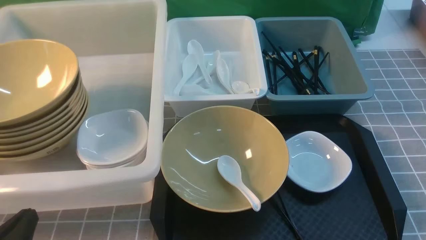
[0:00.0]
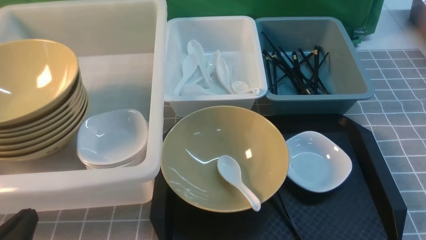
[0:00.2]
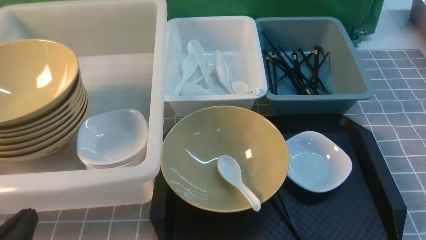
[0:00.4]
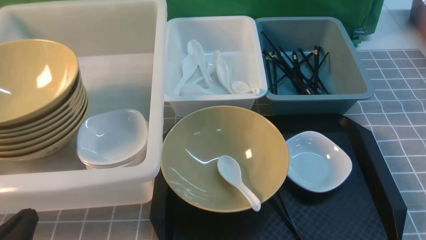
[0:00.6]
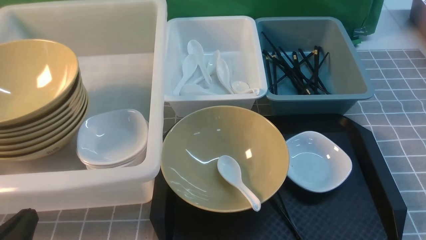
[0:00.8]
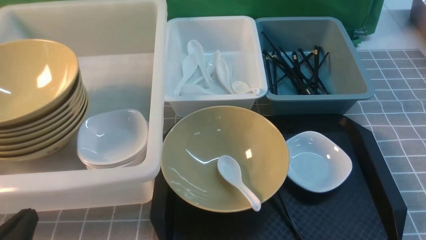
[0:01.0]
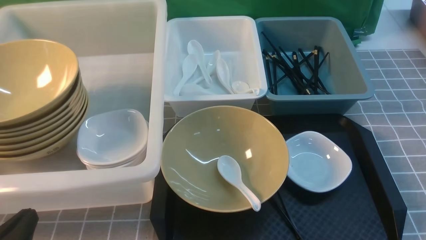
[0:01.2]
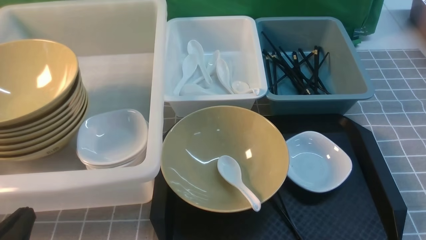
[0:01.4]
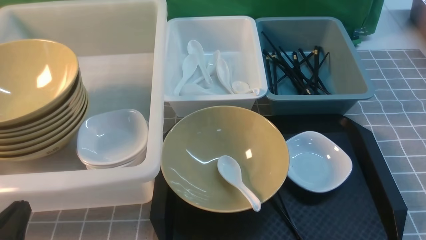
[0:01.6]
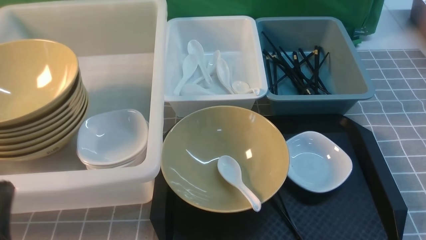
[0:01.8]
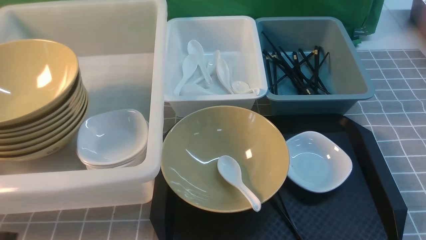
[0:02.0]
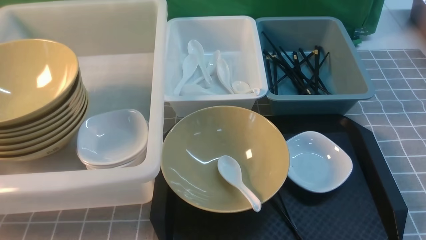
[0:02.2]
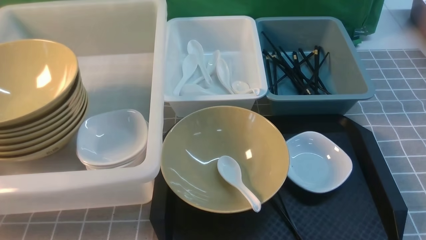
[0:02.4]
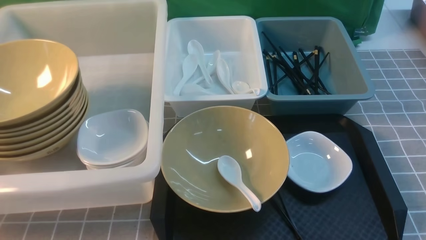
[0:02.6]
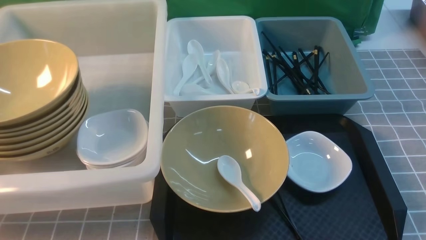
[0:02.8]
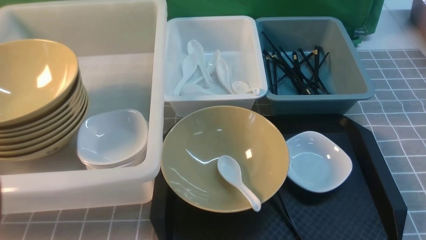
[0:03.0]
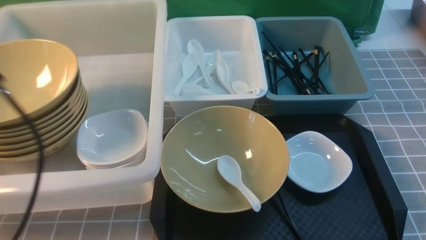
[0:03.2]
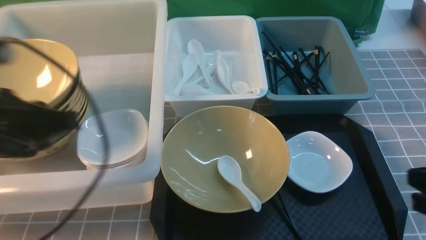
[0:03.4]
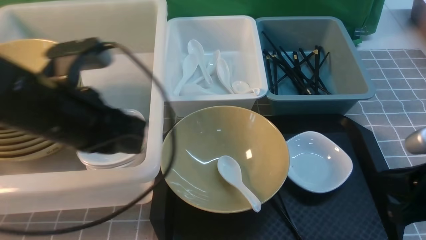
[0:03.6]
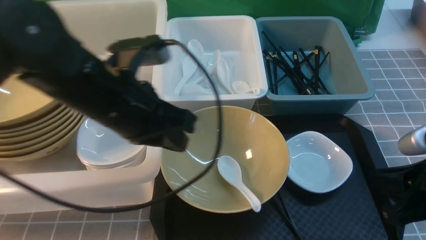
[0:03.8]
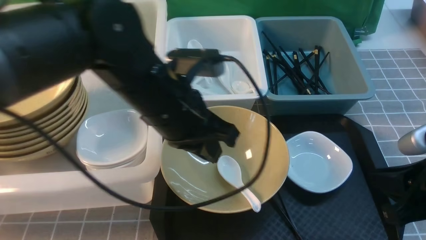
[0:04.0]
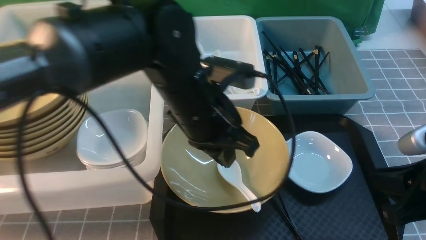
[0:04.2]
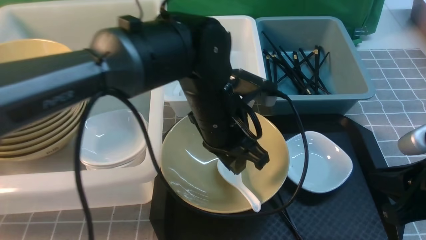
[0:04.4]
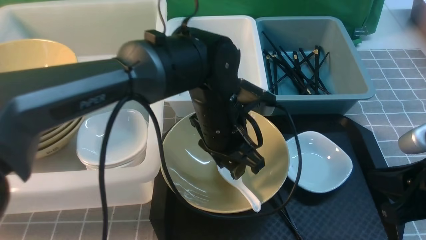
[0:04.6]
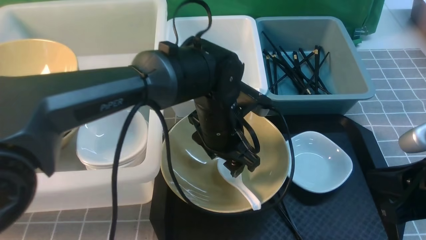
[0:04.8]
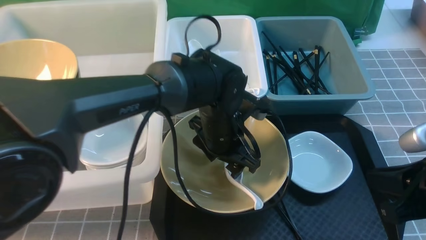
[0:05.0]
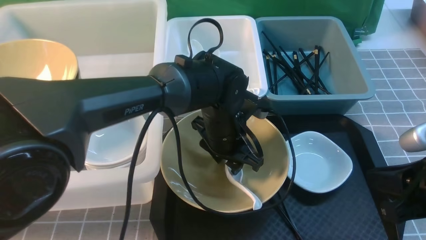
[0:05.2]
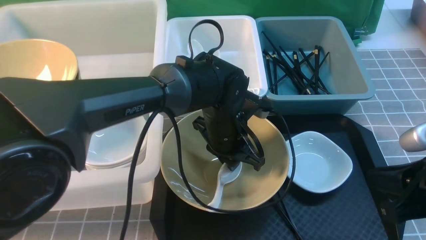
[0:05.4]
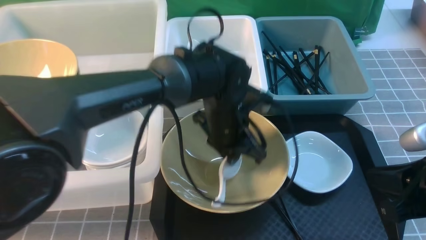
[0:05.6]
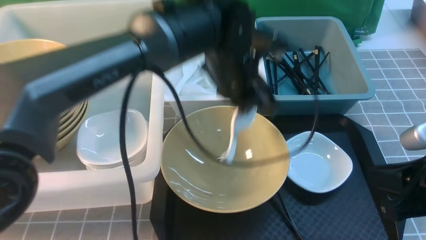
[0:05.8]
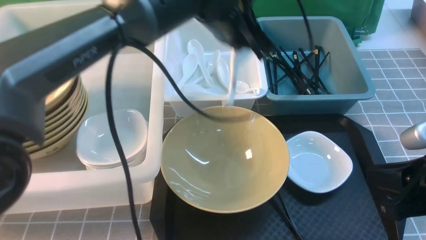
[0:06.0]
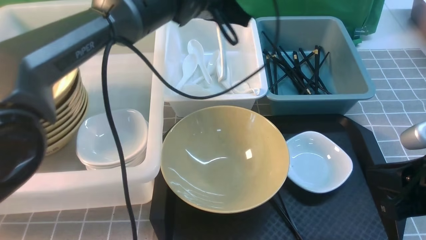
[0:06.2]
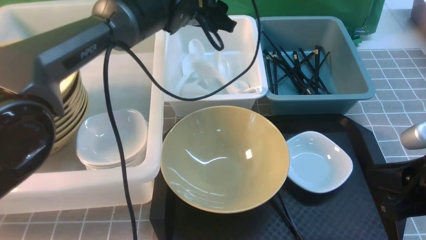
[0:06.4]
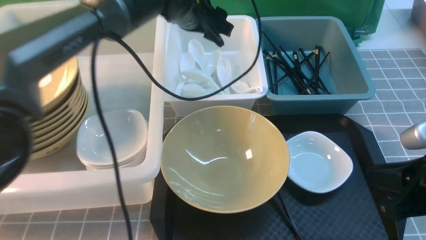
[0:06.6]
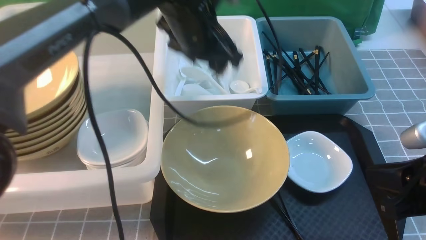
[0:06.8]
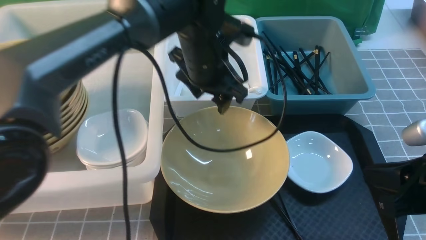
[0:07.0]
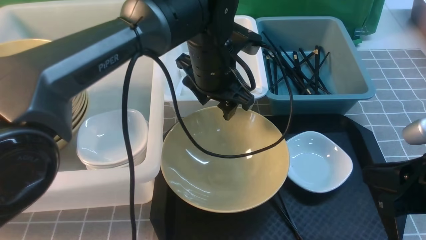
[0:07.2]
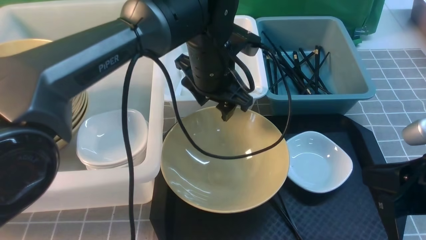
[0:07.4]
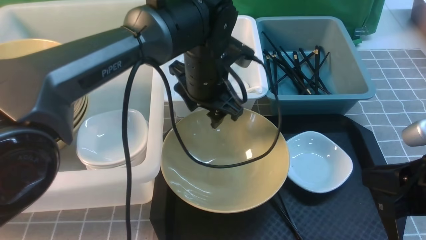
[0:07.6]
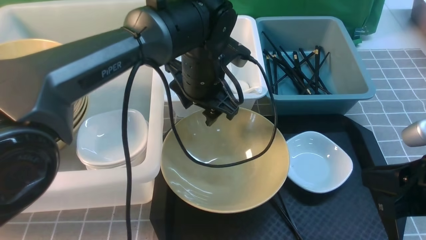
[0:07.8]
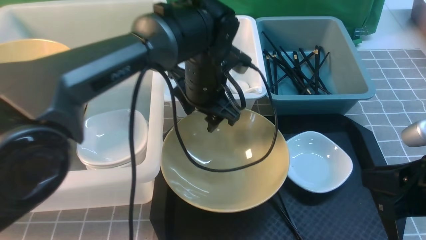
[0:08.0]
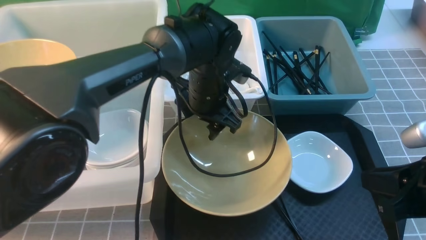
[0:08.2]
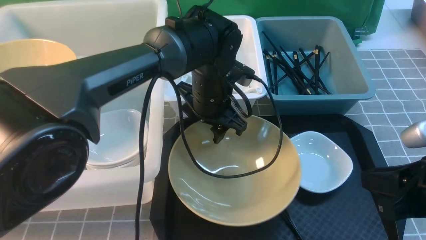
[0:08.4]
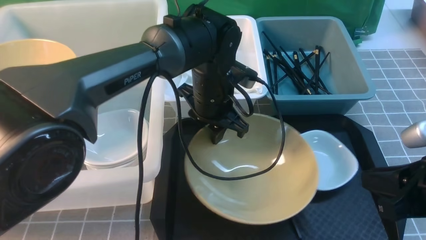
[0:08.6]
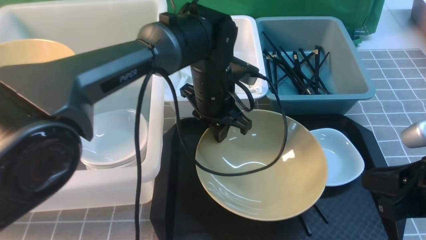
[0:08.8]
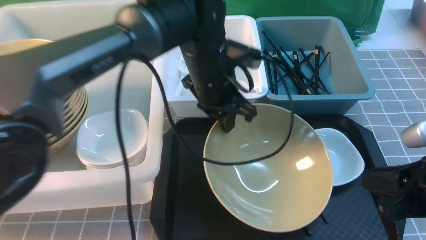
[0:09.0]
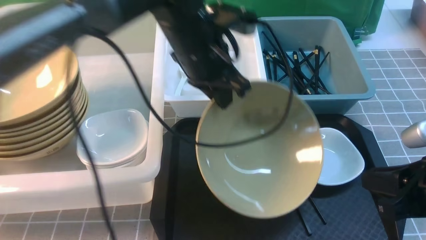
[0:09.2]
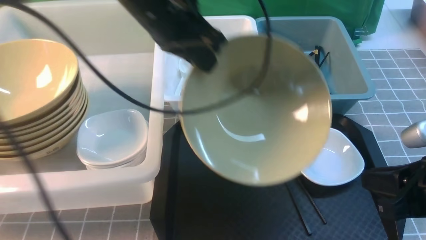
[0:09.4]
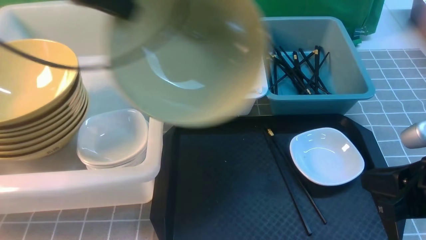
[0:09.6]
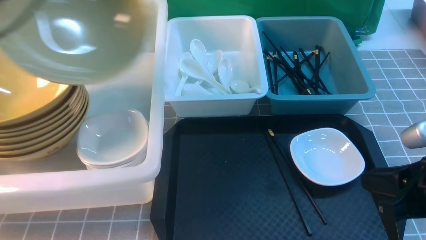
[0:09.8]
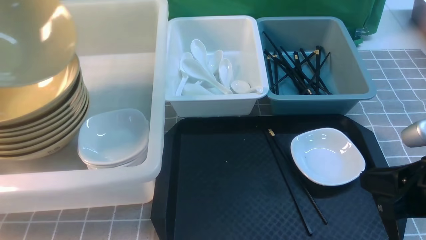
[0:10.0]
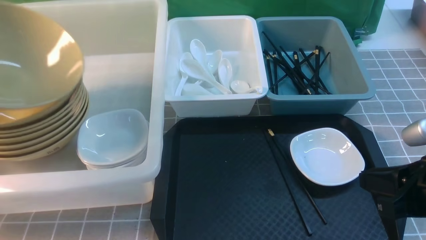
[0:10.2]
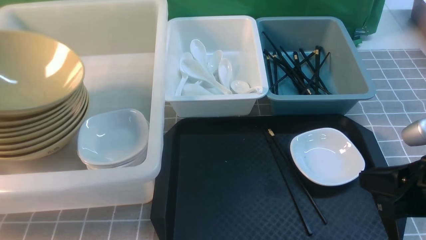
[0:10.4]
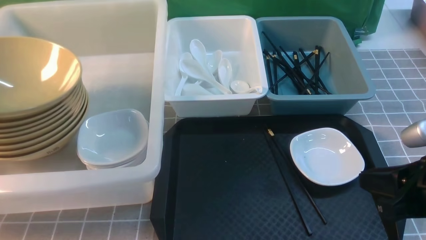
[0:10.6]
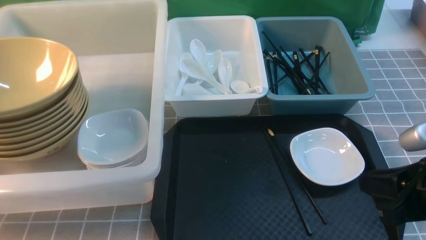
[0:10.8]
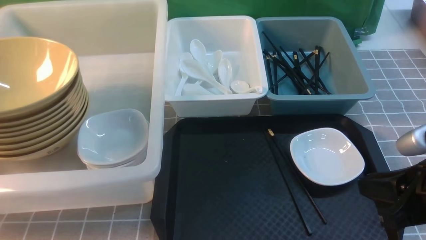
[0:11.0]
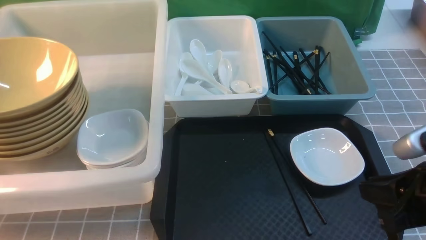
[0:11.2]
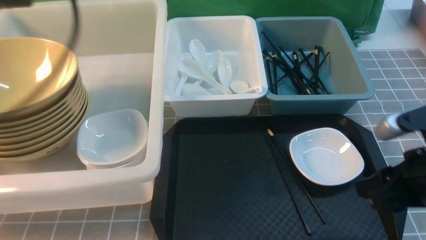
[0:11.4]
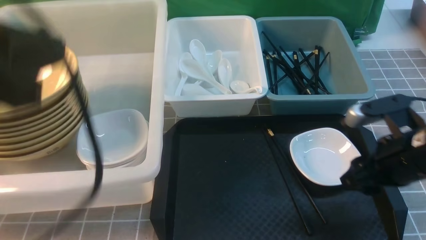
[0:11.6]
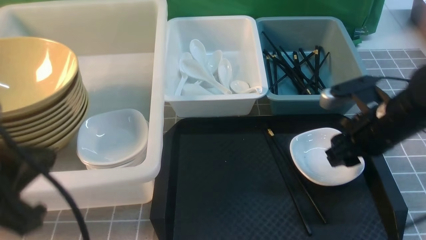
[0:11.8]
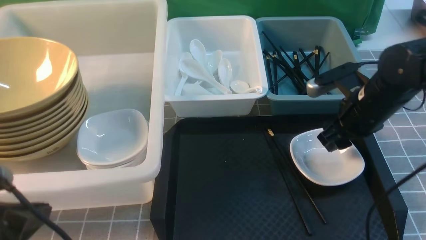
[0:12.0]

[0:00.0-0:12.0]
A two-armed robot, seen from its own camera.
Task of the whole recording: on grey table put chopsticks spoon bowls plates into blue grey white boxes.
Step, 0:00.0 to 0:05.8: use the left arm to grab the soup spoon in the middle.
Step, 0:06.0 to 0:06.4: use the left arm to put the soup spoon into the small storage box in the middle.
Step, 0:06.6 to 0:09.2: use the left arm to grab the yellow noodle bowl on the left.
Step, 0:09.4 to 0:11.0: use the left arm to put the noodle bowl into the large storage box on the left.
0:01.6 to 0:03.0: The left gripper travels upward by approximately 20 cm.
0:03.0 to 0:04.4: The right gripper is displaced to the left by roughly 5 cm; the left gripper heads to the right, forward and downward, covering approximately 35 cm.
0:04.4 to 0:06.0: The left gripper moves forward and upward, about 15 cm, and opens, then closes again.
0:06.0 to 0:07.6: The left gripper is displaced downward by approximately 5 cm, and opens its fingers.
0:07.6 to 0:09.0: The left gripper closes its fingers.
0:09.0 to 0:10.4: The left gripper heads to the left, covering some 40 cm.
0:10.4 to 0:12.0: The right gripper travels forward by some 20 cm, and opens up, while the left gripper heads backward and to the right, covering some 30 cm, and opens, then closes once more.

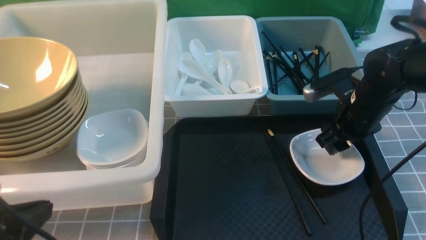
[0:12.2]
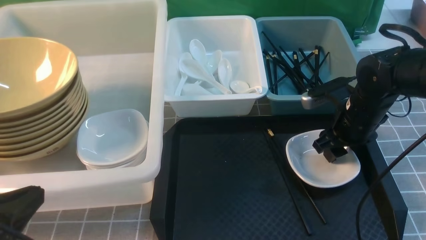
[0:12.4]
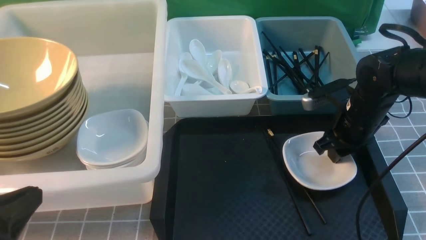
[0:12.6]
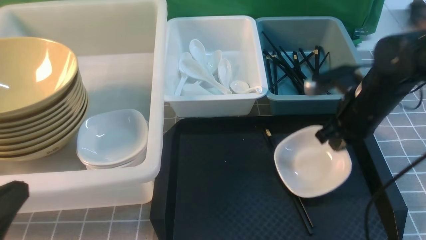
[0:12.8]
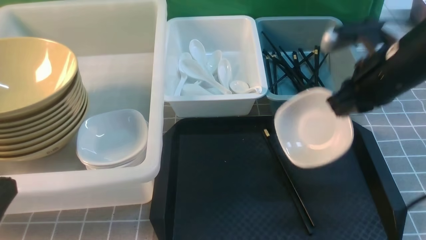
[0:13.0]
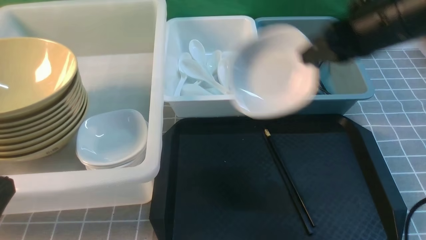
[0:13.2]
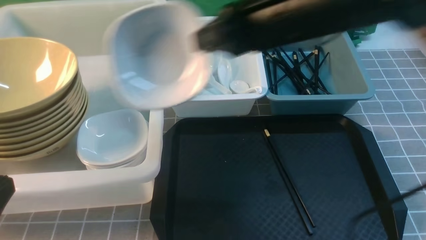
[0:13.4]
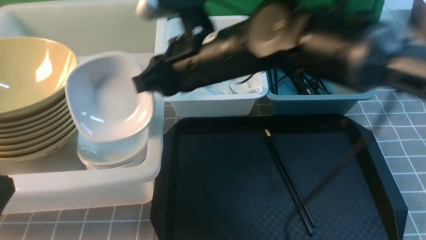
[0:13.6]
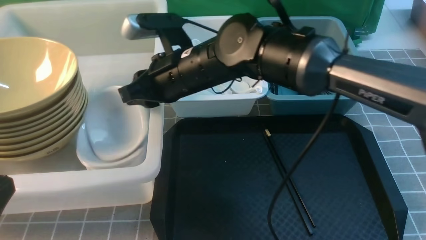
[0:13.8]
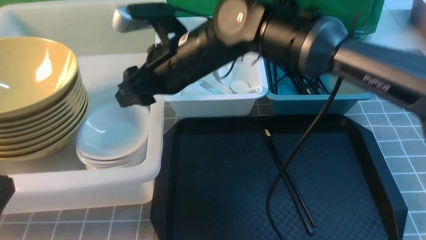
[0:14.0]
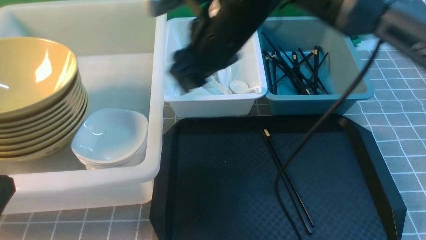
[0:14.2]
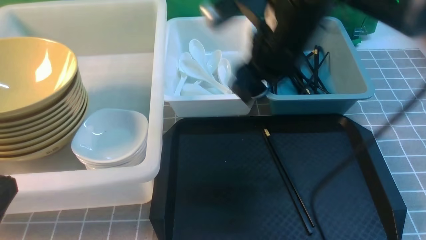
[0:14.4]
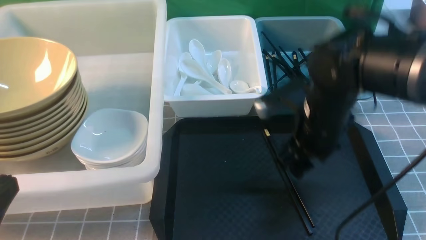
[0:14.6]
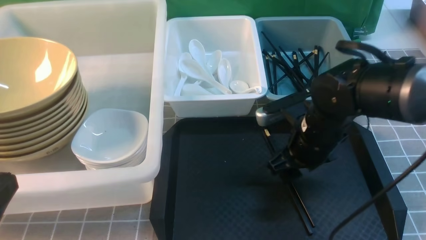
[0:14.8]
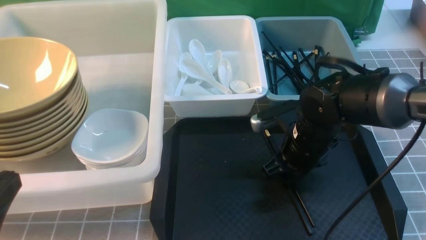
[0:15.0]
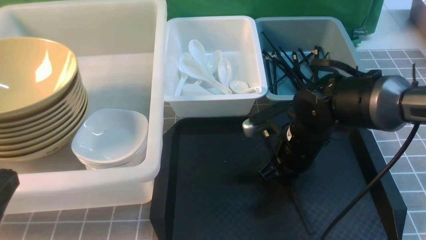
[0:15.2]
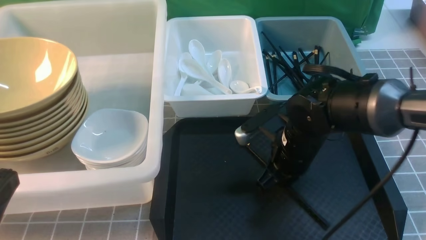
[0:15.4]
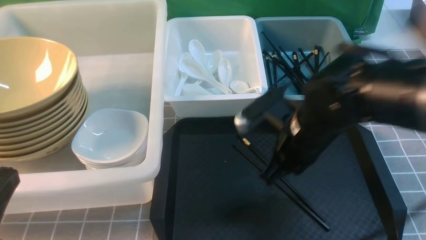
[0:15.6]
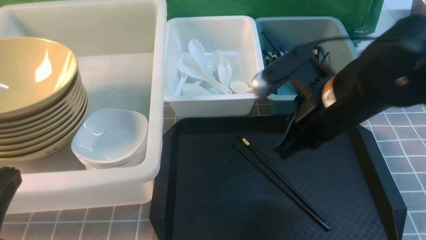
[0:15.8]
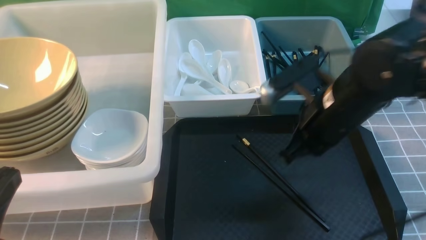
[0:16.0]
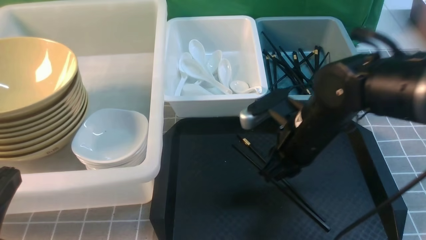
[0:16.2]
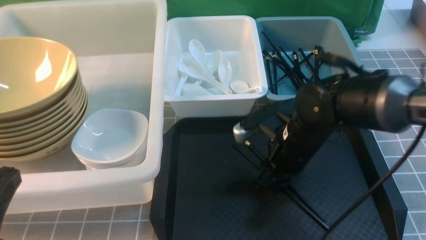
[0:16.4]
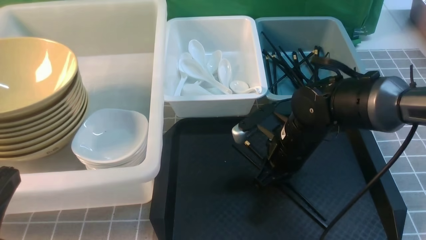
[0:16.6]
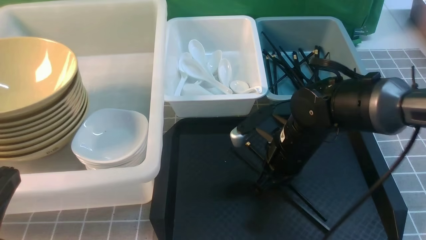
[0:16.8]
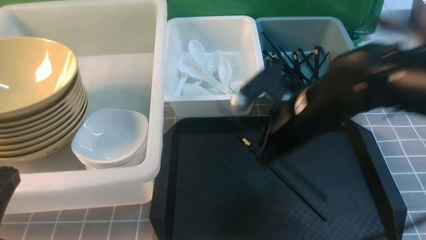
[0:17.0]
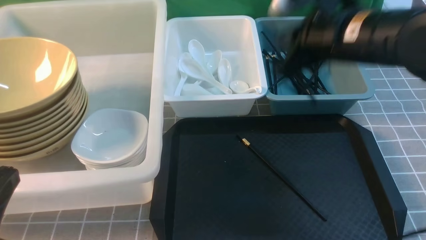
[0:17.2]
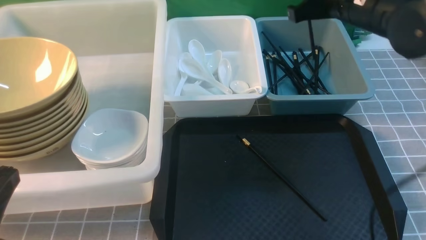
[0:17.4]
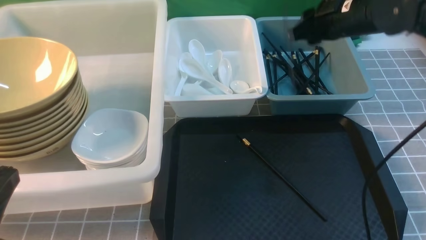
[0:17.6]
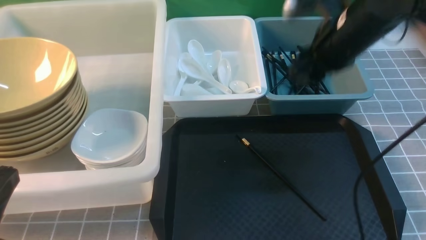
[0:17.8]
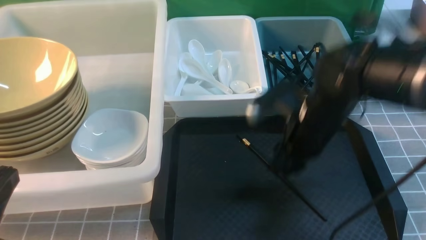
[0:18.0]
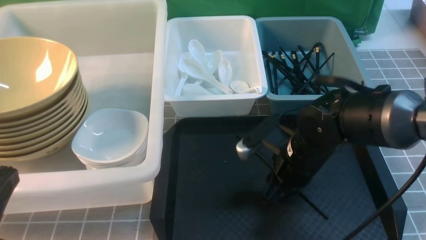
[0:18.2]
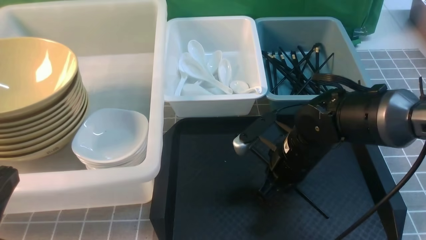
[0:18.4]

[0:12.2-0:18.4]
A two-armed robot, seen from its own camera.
Task of the whole recording: on grey table put chopsticks spoon bowls plates into blue grey white boxes.
Step, 0:13.0 to 0:14.0: use the right arm to put the plate into the large storage box on the left.
Step, 0:14.4 to 0:17.0: use the right arm to grab a chopstick.
Step, 0:17.2 to 0:17.4: use the right arm to put a chopstick into the small storage box on the right.
0:12.2 to 0:13.8: The right gripper travels to the left and upward by approximately 30 cm, and closes up.
0:13.8 to 0:15.4: The right gripper heads to the right and downward, covering some 20 cm, and closes its fingers.
0:15.4 to 0:16.8: The right gripper travels upward and back again, roughly 5 cm each way.
0:16.8 to 0:18.4: The right gripper reaches some 15 cm upward, then returns, and opens and closes again.
